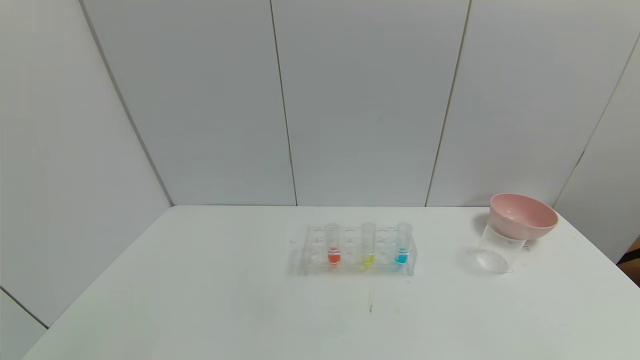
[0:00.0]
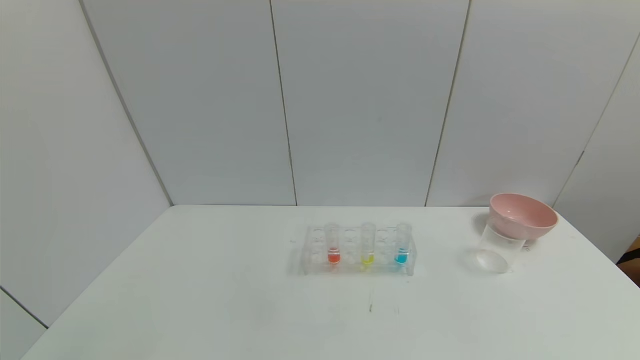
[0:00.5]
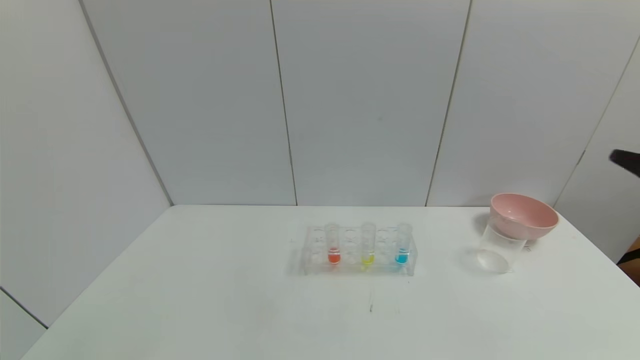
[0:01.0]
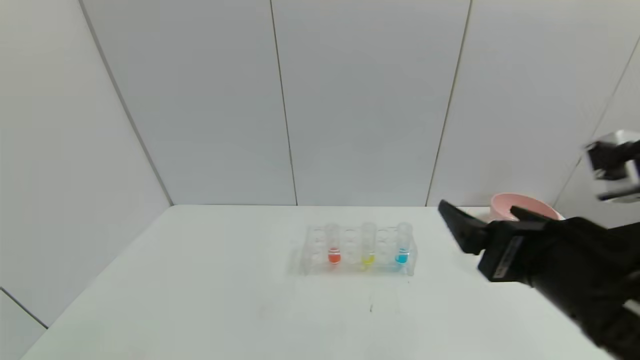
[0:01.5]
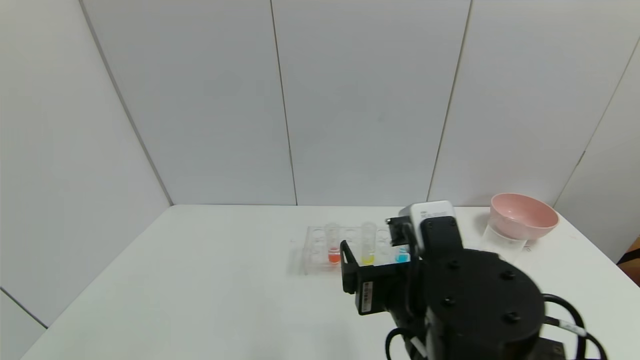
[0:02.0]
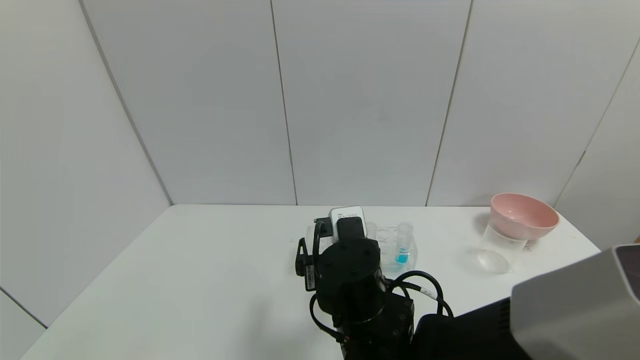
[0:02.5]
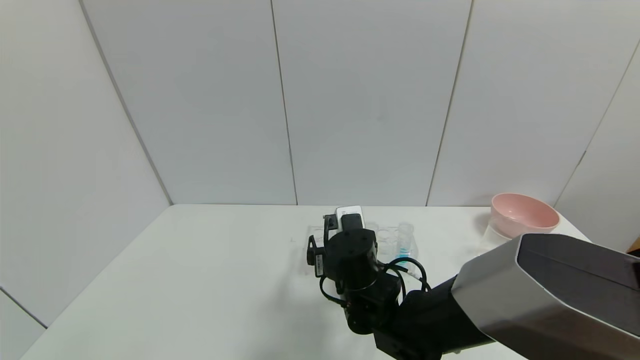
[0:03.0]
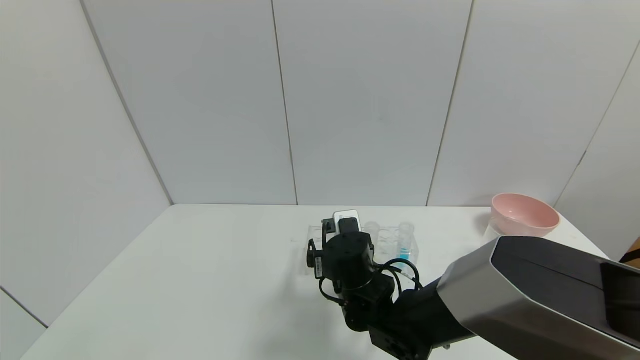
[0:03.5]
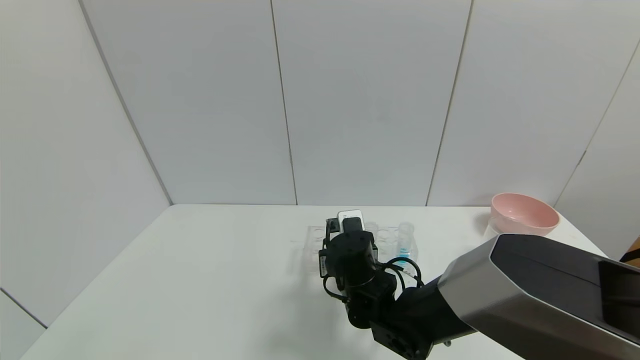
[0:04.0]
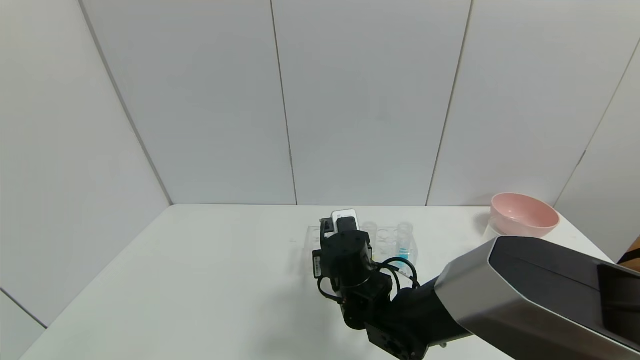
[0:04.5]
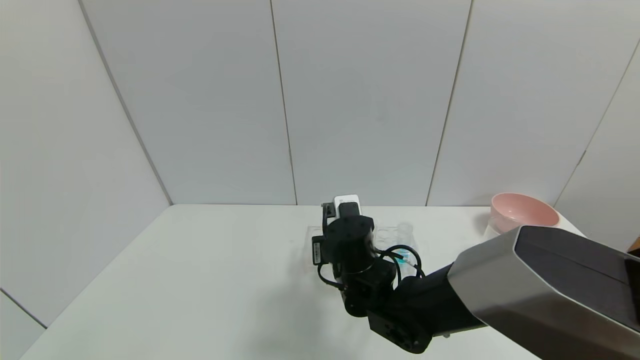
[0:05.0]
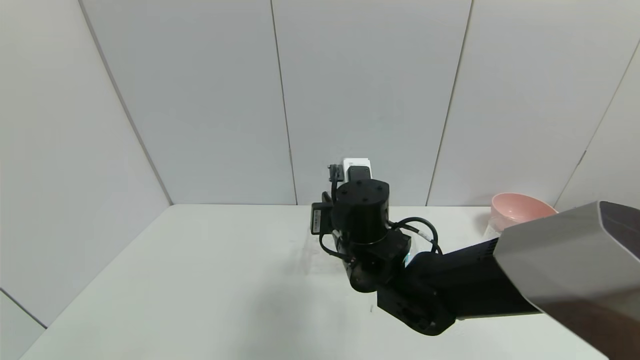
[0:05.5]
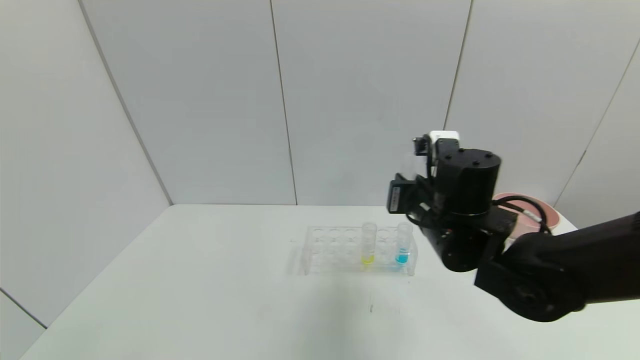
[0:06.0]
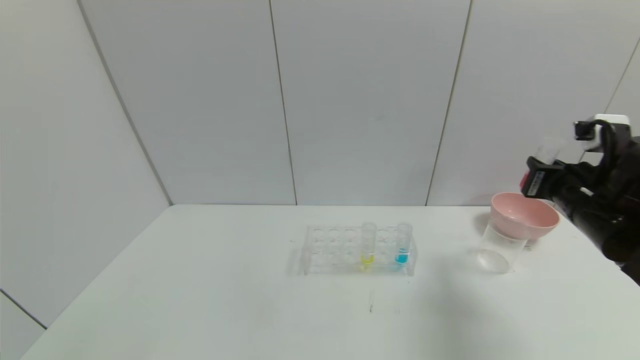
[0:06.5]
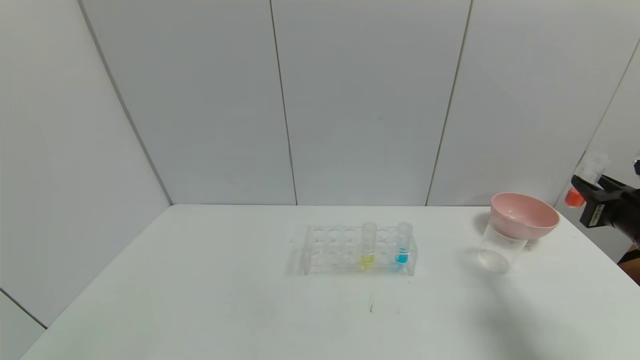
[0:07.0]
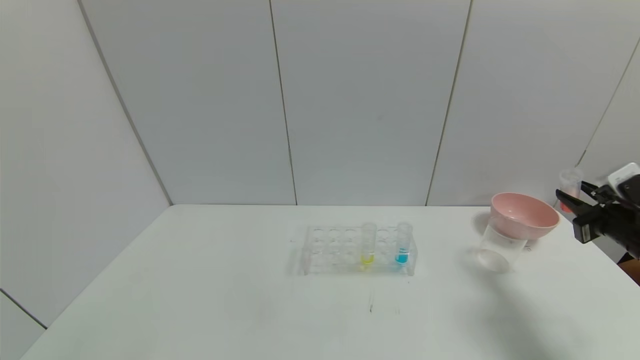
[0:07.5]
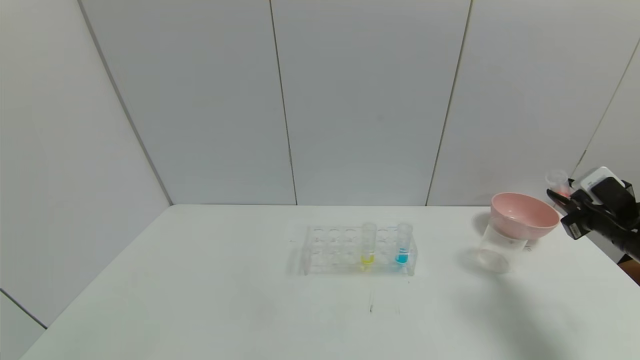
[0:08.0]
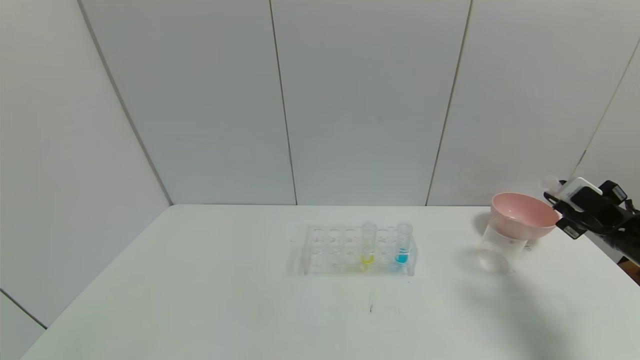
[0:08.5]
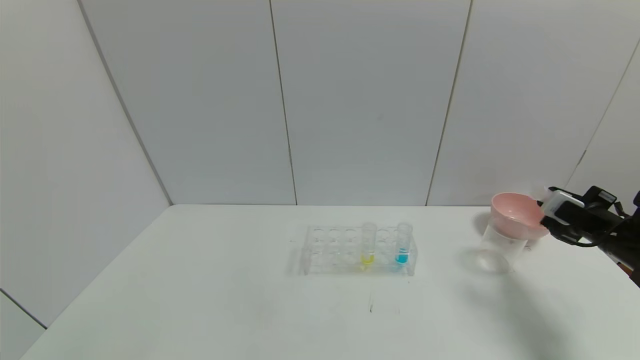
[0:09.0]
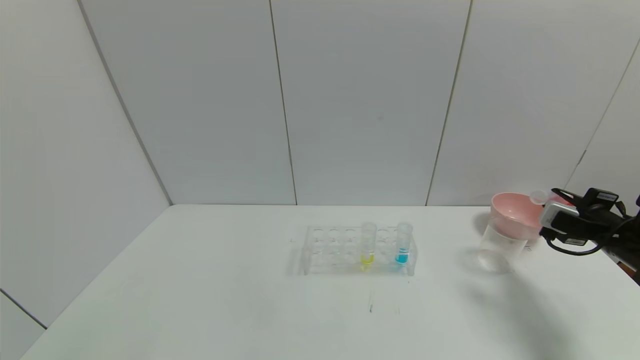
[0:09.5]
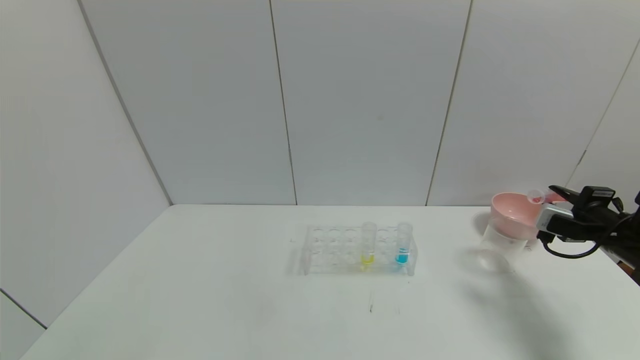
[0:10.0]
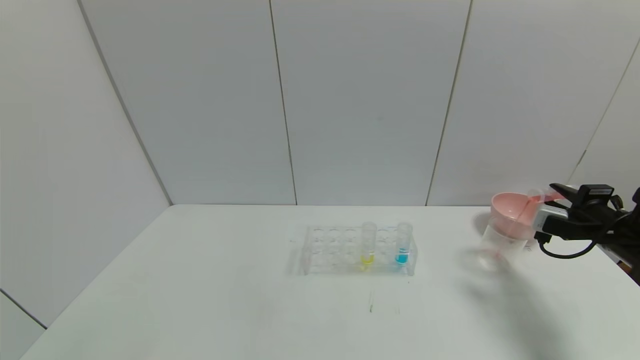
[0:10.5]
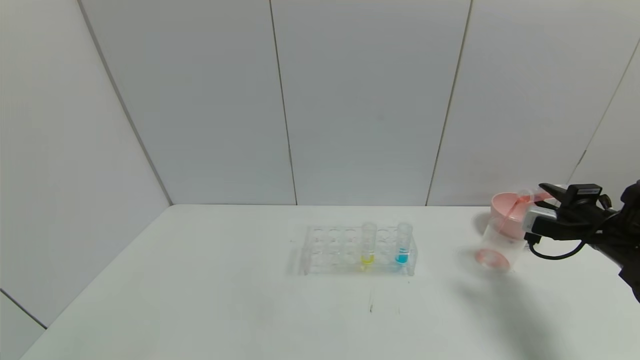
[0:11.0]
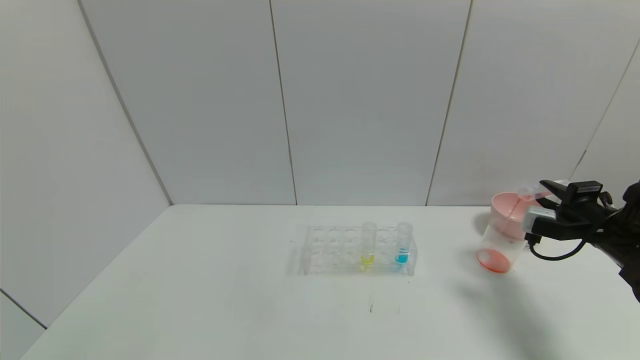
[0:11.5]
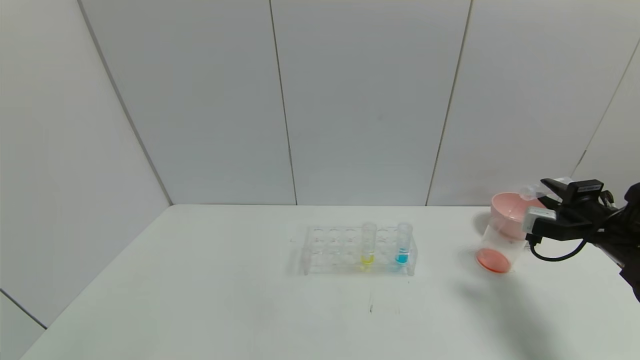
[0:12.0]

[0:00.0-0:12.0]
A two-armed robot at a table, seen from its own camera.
Task of the whole recording: pick up the test tube with yellow pigment and the test tube with red pigment by grippers and pour them into the beaker.
Step, 0:00.0 to 0:06.0: Pick up the test tube containing the red reagent with right gripper.
0:00.0 to 0:02.0: The right gripper heads to the left and forward, covering roughly 35 cm.
0:02.0 to 0:04.0: The right gripper heads forward and downward, covering approximately 20 cm, and closes.
0:04.0 to 0:06.0: The right gripper heads upward and to the right, covering approximately 15 cm, and closes.
0:06.0 to 0:08.0: The right gripper moves to the right, roughly 30 cm.
0:10.0 to 0:12.0: The grippers move only a little.

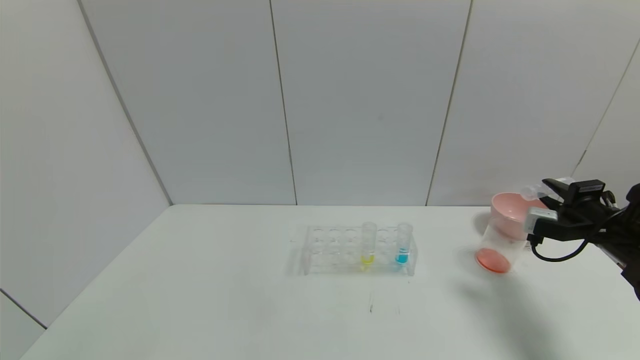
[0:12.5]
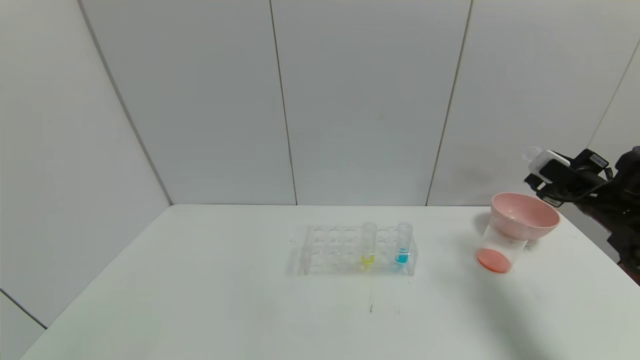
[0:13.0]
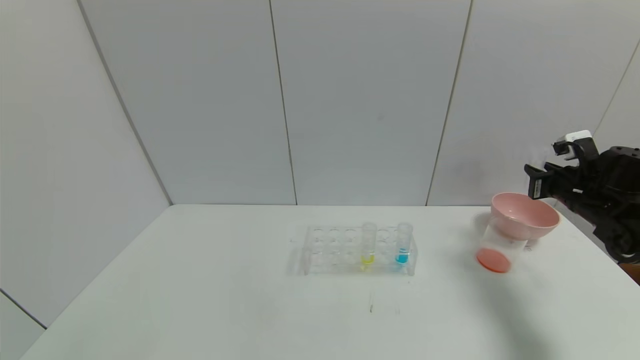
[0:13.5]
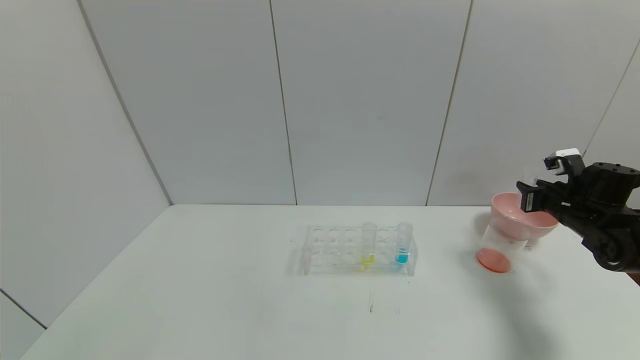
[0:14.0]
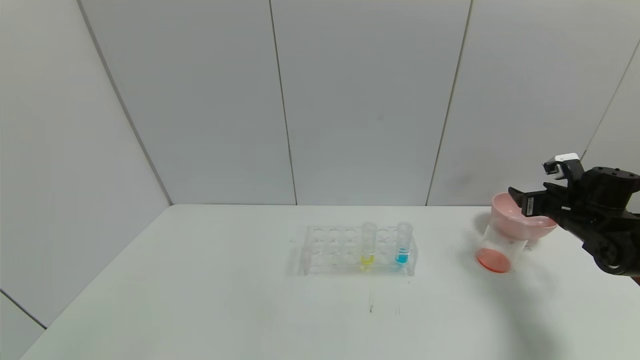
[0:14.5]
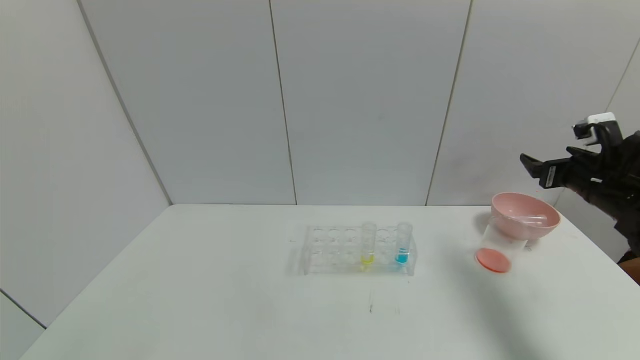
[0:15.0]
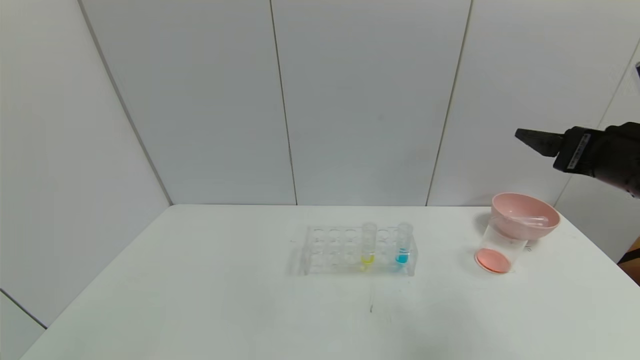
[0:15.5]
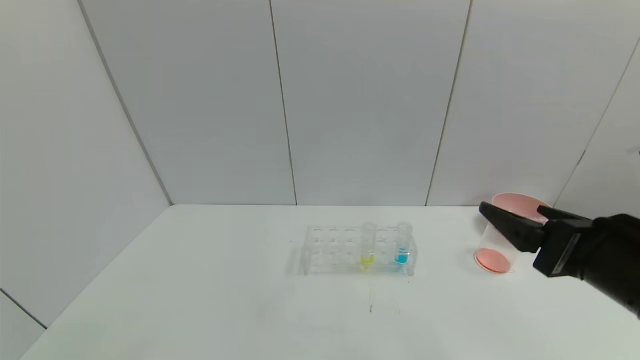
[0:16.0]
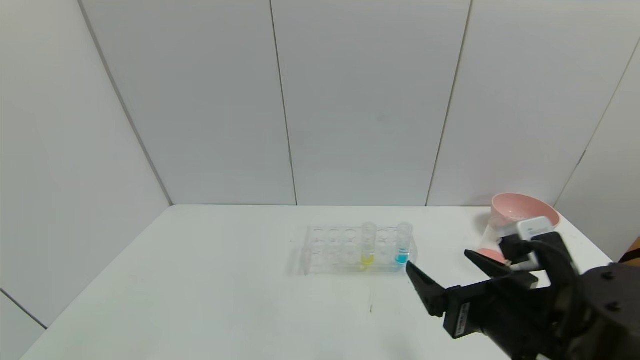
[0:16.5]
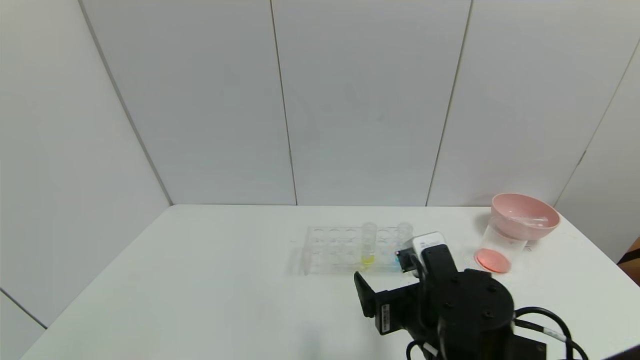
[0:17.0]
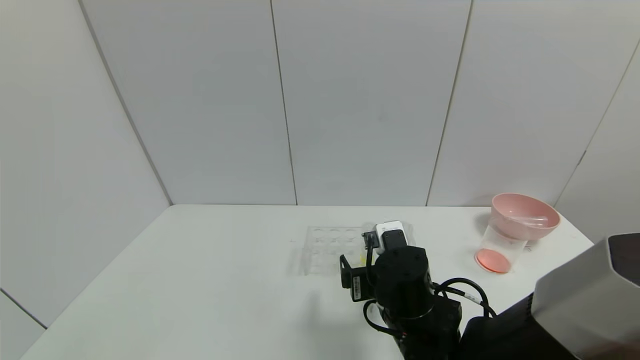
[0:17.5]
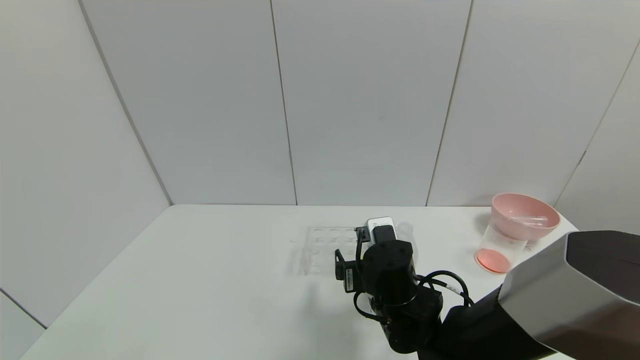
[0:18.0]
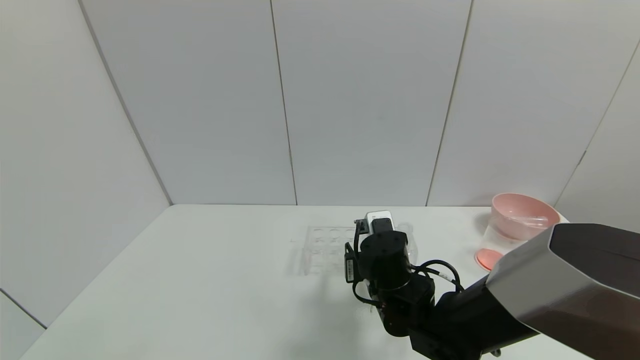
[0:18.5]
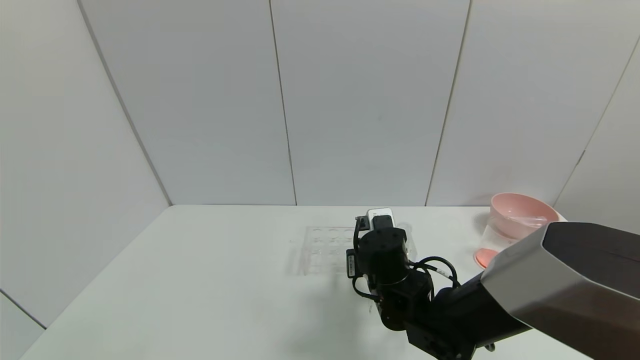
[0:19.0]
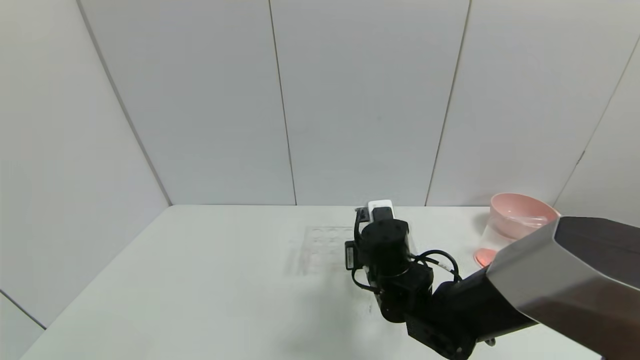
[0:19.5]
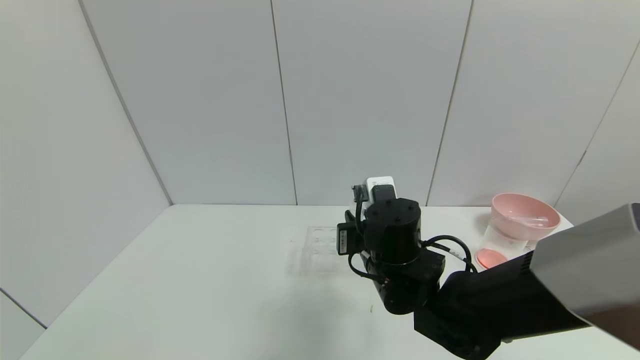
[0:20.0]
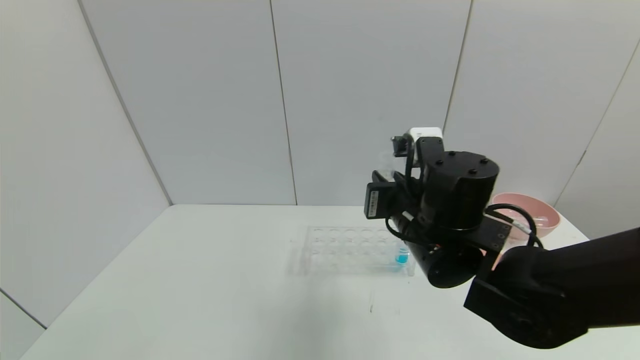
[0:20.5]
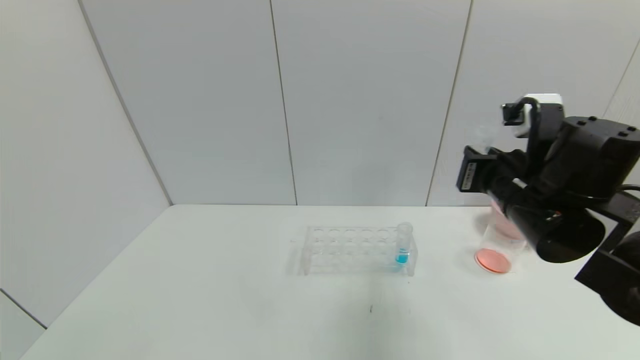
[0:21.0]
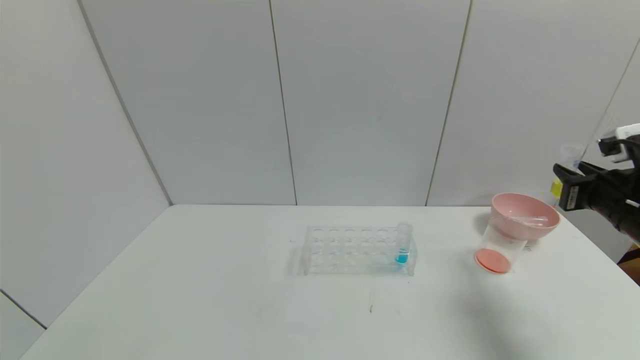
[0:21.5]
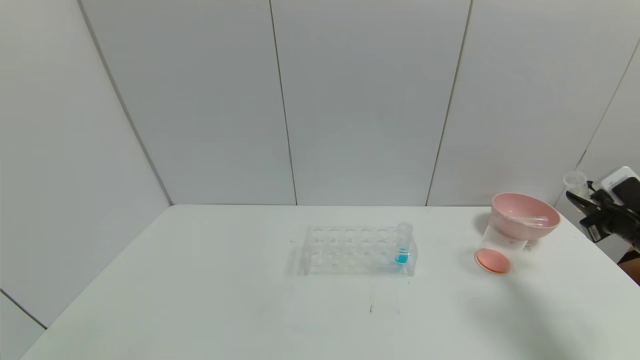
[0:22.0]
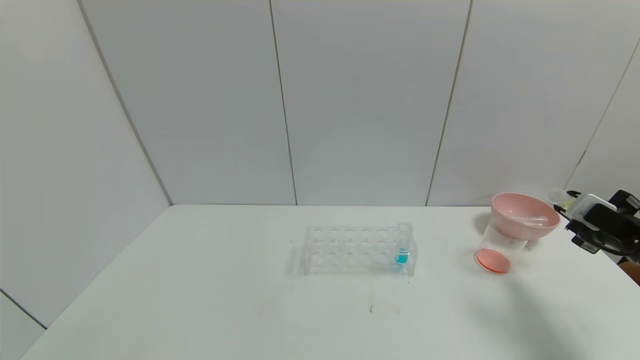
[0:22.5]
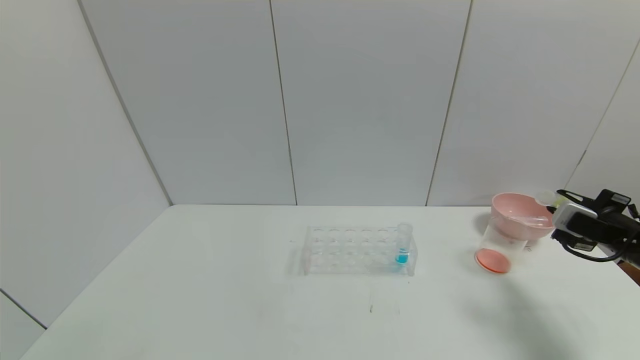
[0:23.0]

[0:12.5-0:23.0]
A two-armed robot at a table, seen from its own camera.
Task of the whole recording: pick up the test tube with yellow pigment and the test tube with red pigment by grippers and pour them into the beaker.
Step, 0:14.0 to 0:16.0: Place the test tube into the bowl with right gripper.
Step, 0:16.5 to 0:21.0: Pick up the test tube containing the yellow reagent with right gripper.
0:12.5 to 0:14.5: The right gripper heads forward, covering about 5 cm, and opens up.
0:14.5 to 0:16.5: The right gripper goes about 35 cm to the left and backward.
0:16.5 to 0:19.0: The right gripper goes roughly 20 cm forward, to the left and downward, and closes its fingers.
0:19.0 to 0:21.0: The right gripper is displaced upward and to the right by approximately 20 cm.
0:21.0 to 0:23.0: The right gripper heads to the right and downward, covering some 25 cm.
